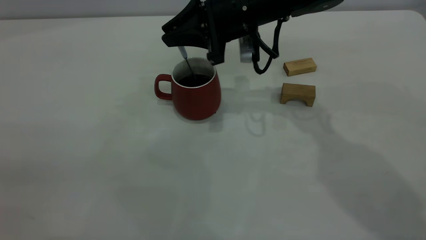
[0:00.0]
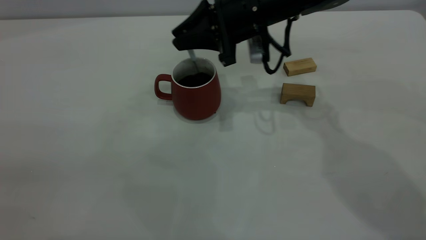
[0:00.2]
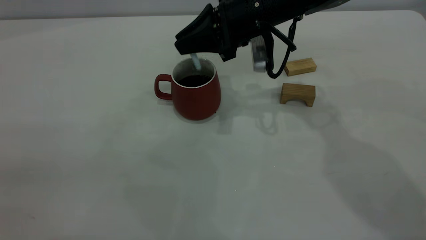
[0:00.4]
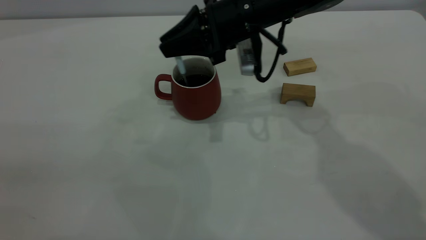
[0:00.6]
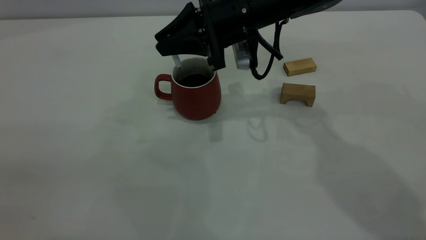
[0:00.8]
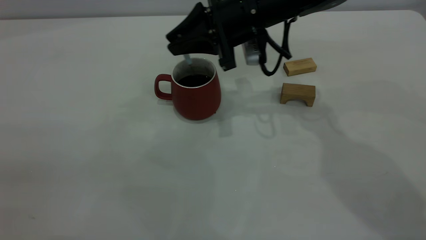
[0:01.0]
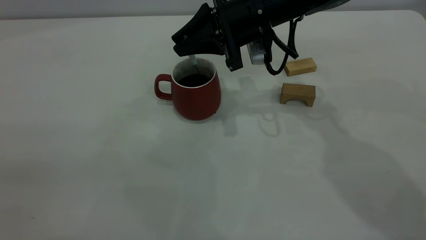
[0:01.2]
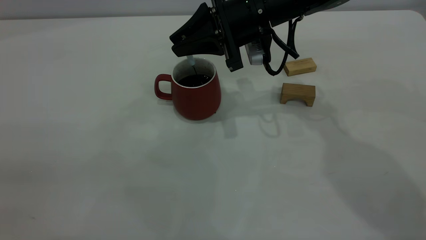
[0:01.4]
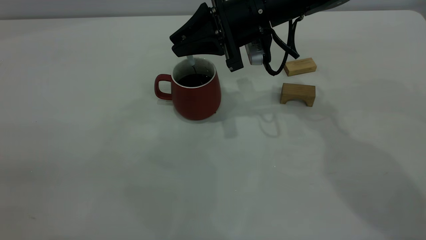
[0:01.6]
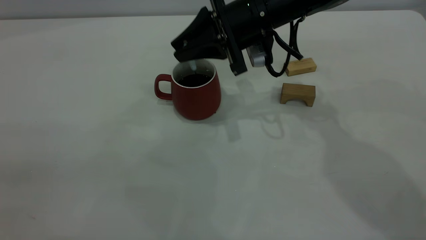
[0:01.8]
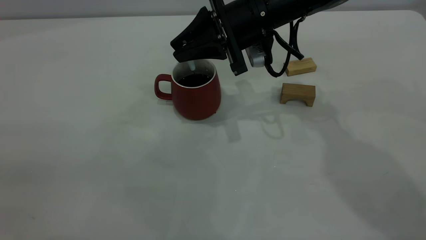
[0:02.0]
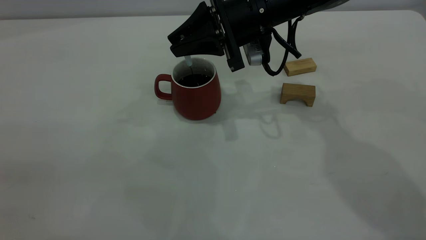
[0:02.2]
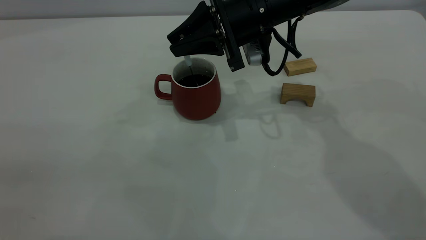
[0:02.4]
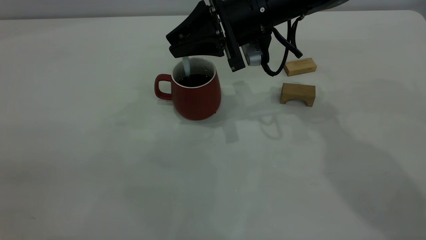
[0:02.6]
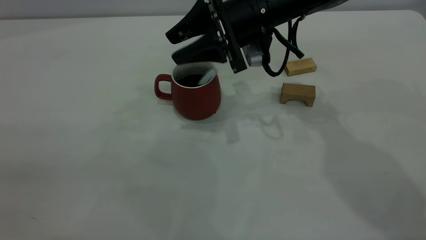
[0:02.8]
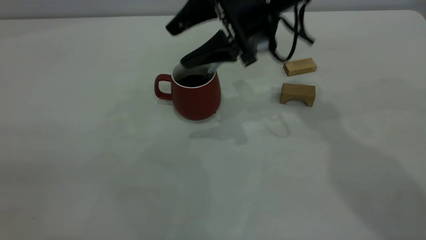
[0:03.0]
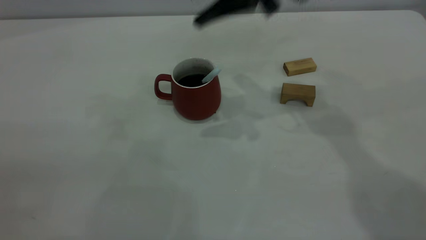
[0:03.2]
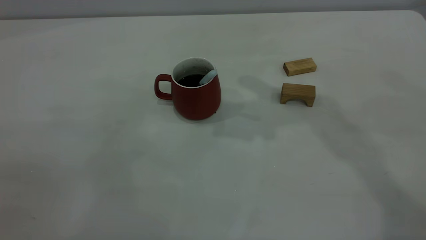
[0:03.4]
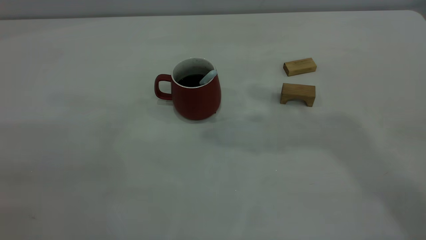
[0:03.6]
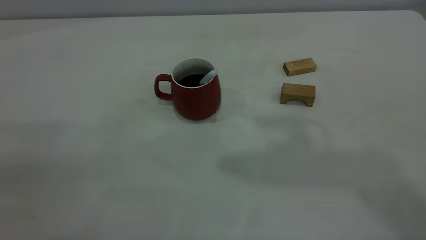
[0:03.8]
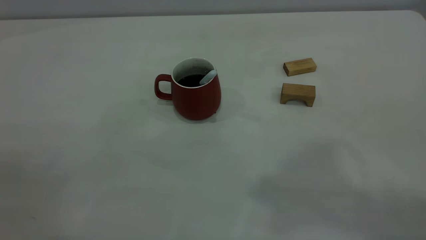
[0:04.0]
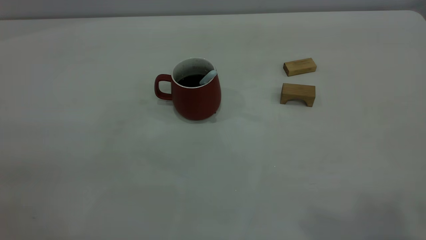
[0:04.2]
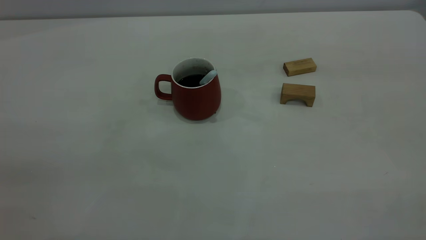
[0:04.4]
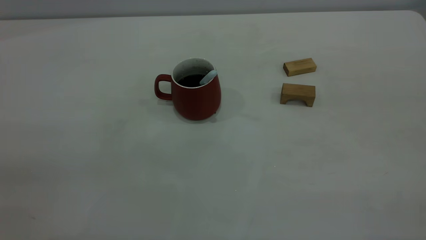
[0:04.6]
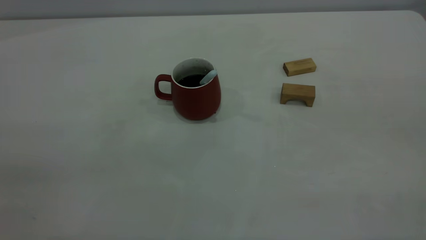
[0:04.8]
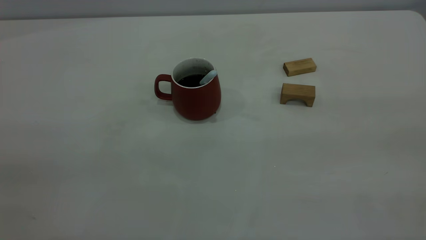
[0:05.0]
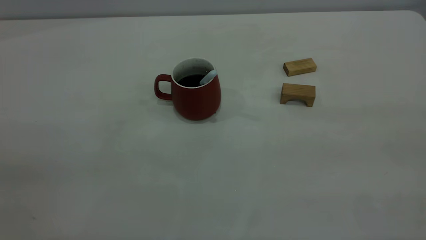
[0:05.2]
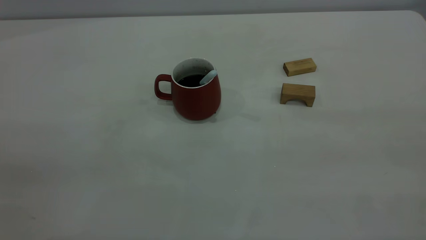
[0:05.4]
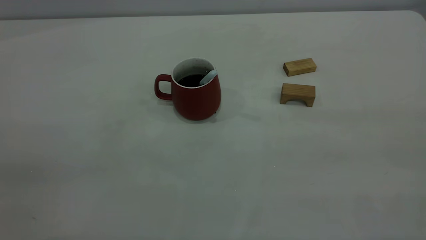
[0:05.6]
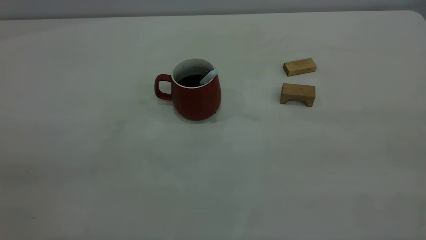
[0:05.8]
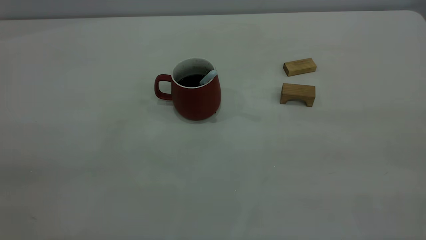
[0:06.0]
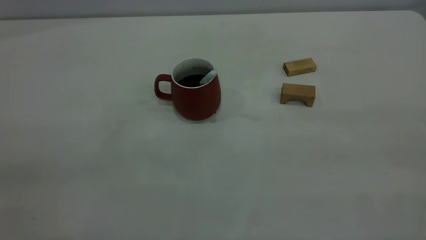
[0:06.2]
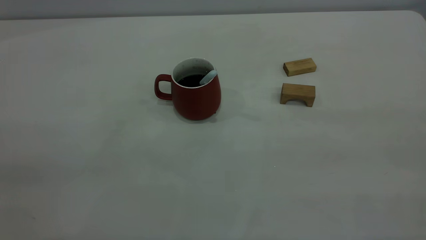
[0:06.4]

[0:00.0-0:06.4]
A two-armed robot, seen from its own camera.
Step, 0:00.0 to 0:02.6: Stir the coffee in the cup.
0:00.0 to 0:01.6: There are only small adjustments of the grippers.
0:01.6 to 0:03.2: The right gripper shifts some 15 cm upward, and opens up.
0:03.2 to 0:04.8: The right gripper heads backward, to the right and upward, covering about 50 cm, and closes up.
